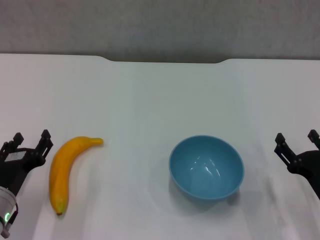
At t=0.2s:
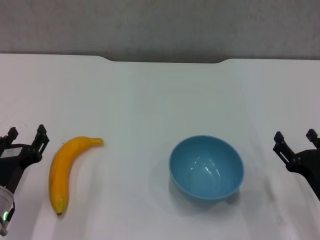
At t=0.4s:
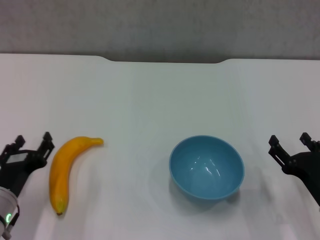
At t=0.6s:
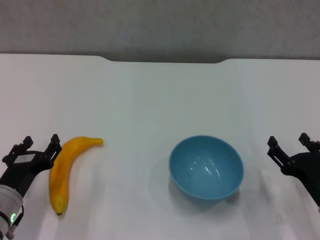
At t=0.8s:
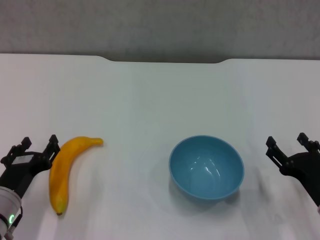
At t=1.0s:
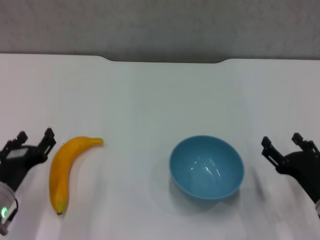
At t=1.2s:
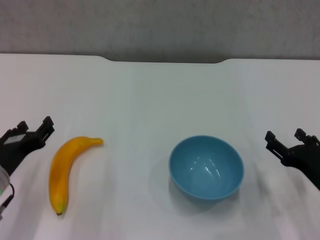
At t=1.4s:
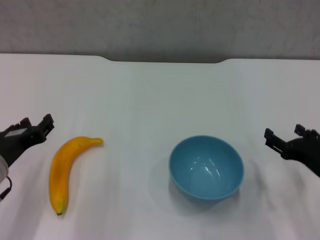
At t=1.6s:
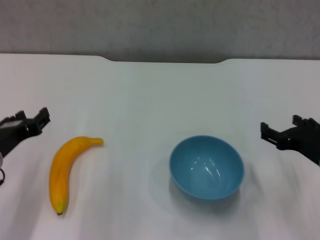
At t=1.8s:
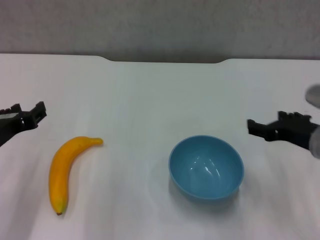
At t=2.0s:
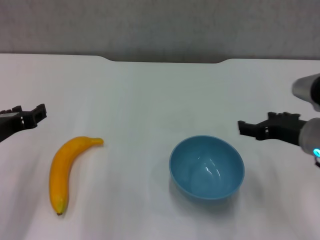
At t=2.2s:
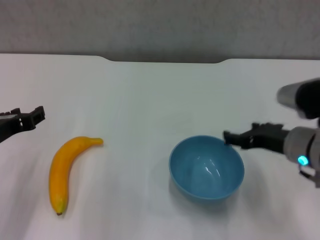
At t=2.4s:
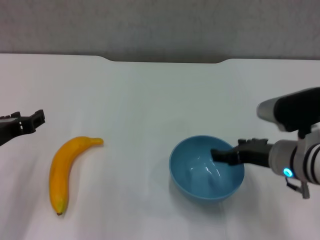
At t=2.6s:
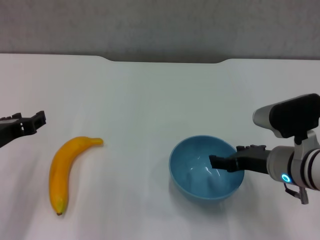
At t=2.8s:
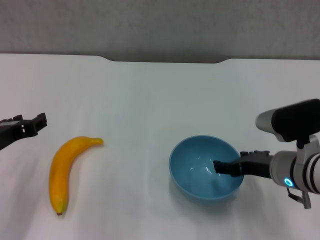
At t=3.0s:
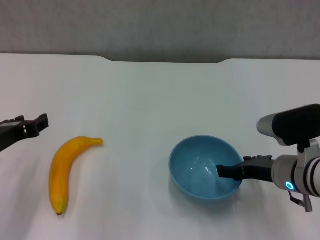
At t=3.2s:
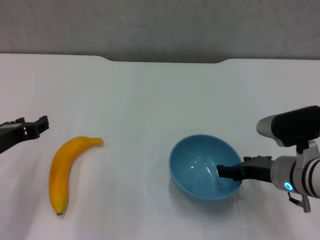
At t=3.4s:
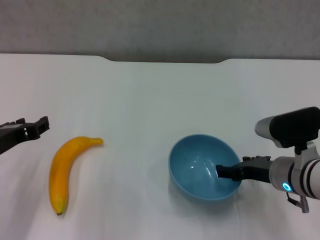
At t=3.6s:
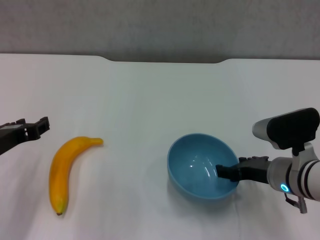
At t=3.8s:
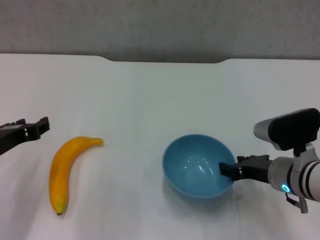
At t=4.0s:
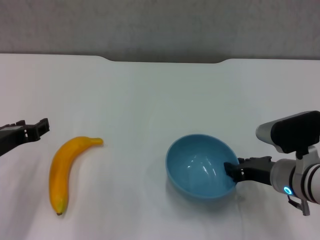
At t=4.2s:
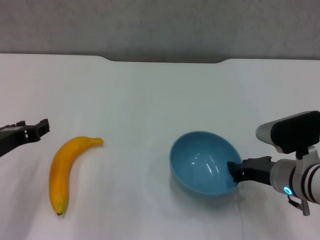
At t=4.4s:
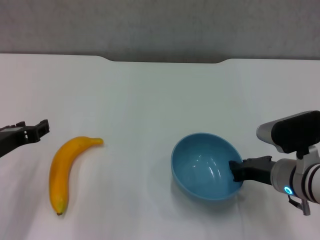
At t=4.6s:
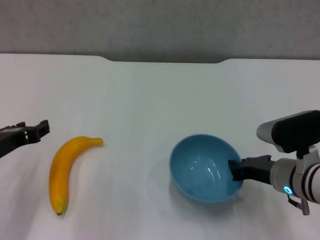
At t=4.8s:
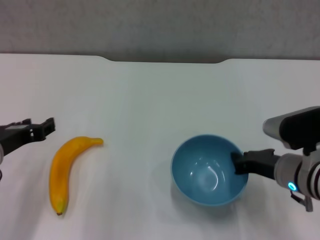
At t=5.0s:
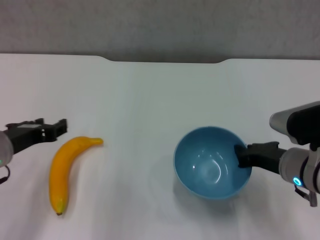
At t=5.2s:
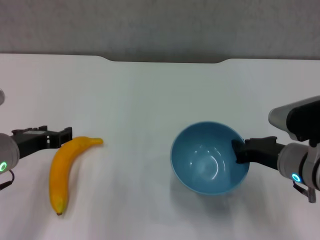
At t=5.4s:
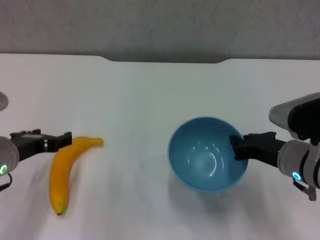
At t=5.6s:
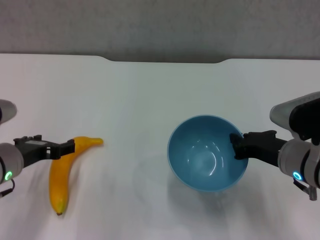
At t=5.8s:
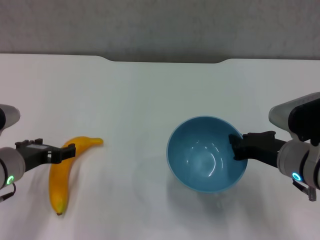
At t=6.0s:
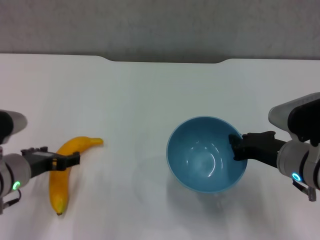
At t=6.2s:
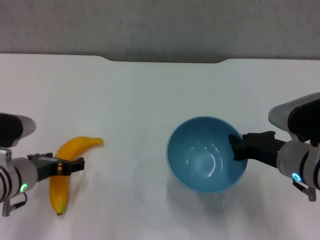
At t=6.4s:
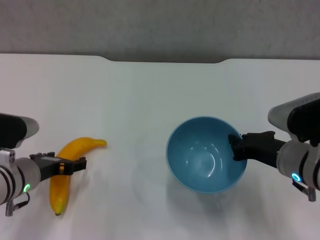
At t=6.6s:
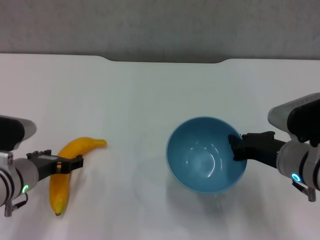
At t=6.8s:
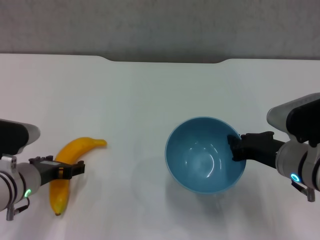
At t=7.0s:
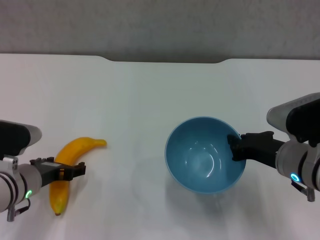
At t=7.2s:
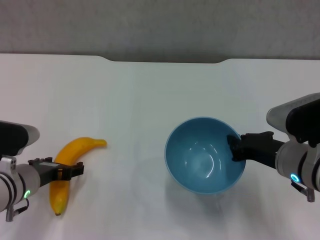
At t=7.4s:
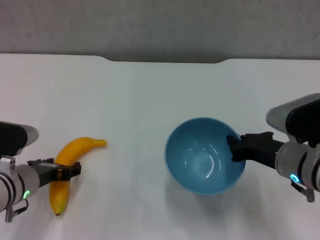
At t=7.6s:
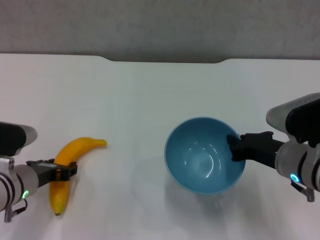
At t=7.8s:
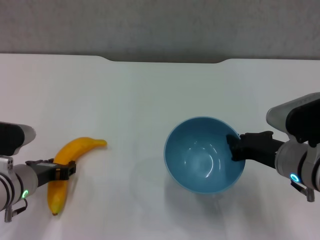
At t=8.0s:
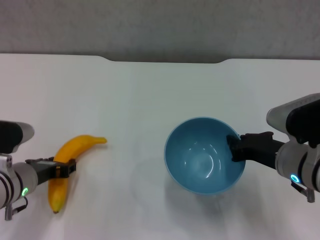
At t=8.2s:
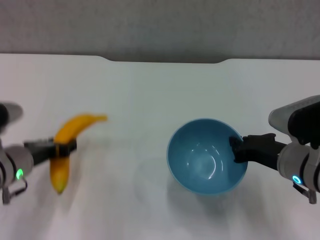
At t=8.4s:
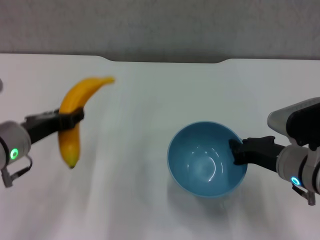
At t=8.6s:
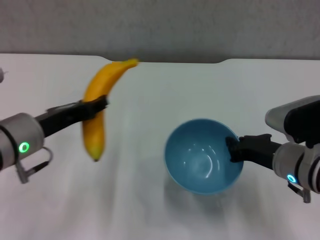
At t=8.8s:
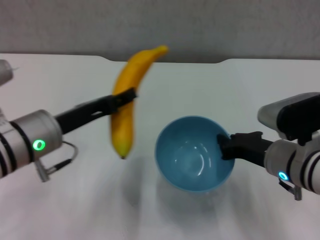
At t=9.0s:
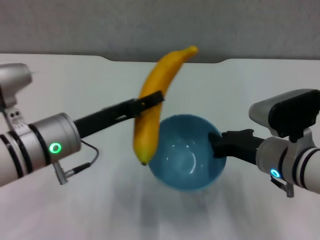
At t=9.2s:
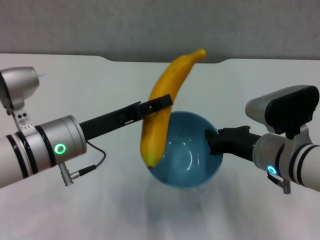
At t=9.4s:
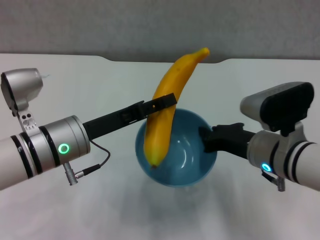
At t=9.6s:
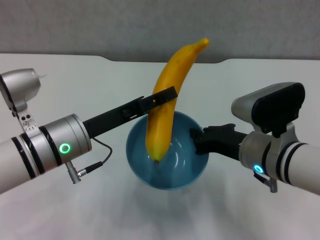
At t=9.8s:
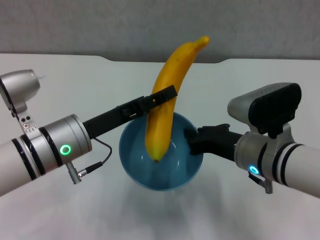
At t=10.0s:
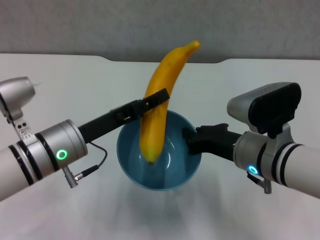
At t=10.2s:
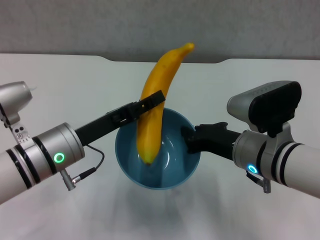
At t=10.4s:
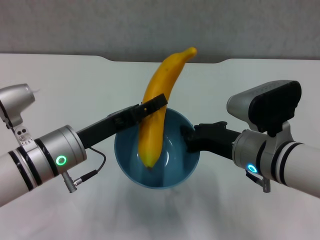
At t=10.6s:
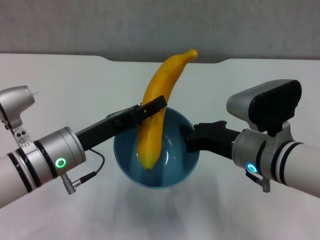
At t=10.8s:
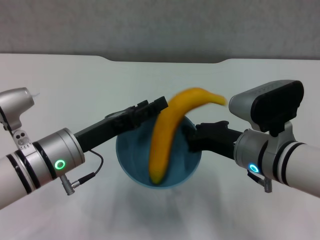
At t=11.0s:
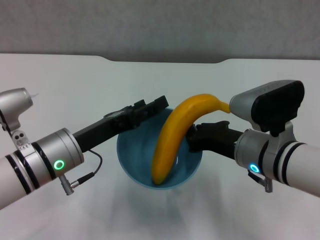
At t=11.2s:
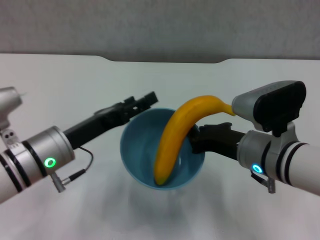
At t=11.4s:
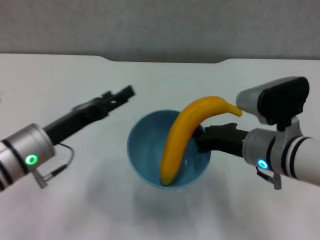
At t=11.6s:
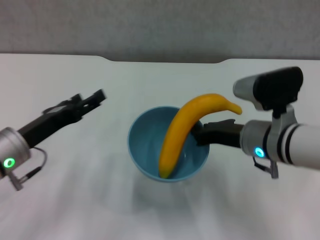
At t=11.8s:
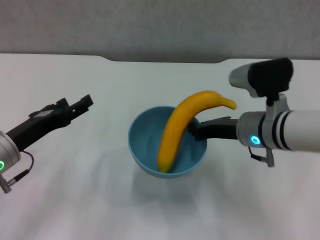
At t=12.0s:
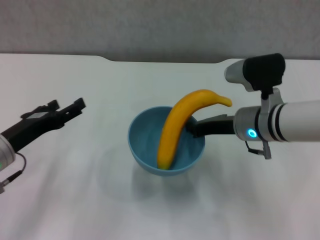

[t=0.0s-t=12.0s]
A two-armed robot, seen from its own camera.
Step, t=0.0s to t=4.2s: Grasp the blue bowl with right gripper.
Step, t=4.4s to t=5.2s: Lift the blue bowl with right gripper.
Step, t=5.4s to t=7.8s: Grasp the banana with left gripper.
Step, t=8.0s to t=11.0s: Place the banana in the blue bowl with left gripper.
t=0.0s to t=1.6s: The left gripper goes some 10 cm upward. Meanwhile the right gripper travels upward and forward by approximately 10 cm.
t=1.6s to t=3.0s: The right gripper moves roughly 5 cm.
t=3.0s to t=4.4s: The right gripper closes its fingers.
t=4.4s to t=6.0s: The left gripper moves roughly 5 cm, and opens.
t=6.0s to t=7.6s: The left gripper closes its fingers.
t=7.6s to t=9.0s: The left gripper is displaced upward and to the right by some 10 cm, and closes its fingers.
t=10.4s to t=12.0s: The left gripper moves to the left, approximately 10 cm, and opens. Meanwhile the right gripper goes about 10 cm forward.

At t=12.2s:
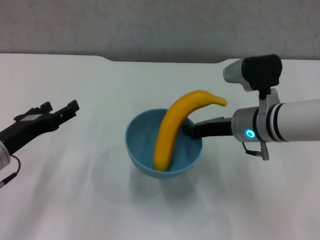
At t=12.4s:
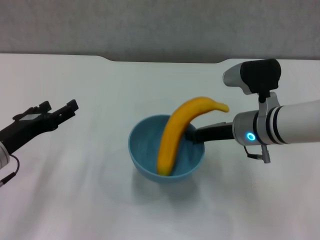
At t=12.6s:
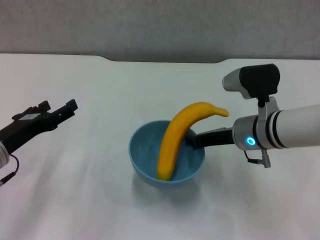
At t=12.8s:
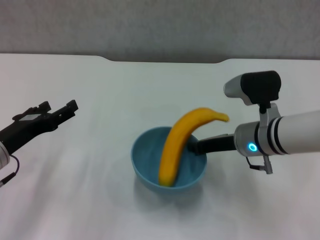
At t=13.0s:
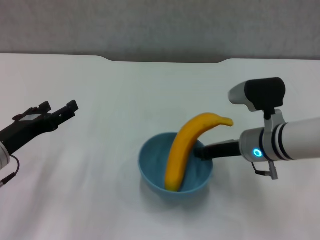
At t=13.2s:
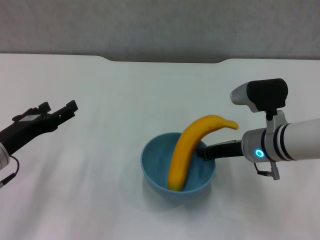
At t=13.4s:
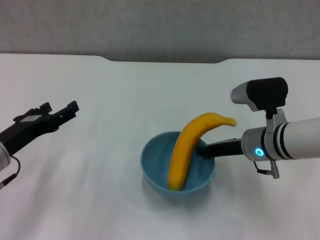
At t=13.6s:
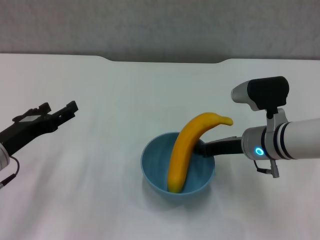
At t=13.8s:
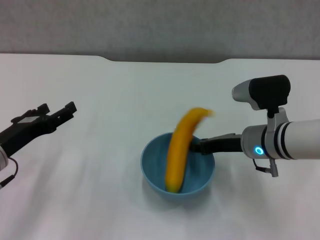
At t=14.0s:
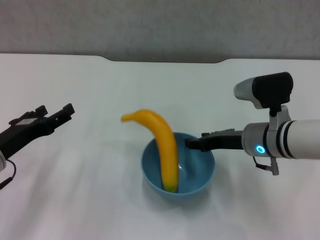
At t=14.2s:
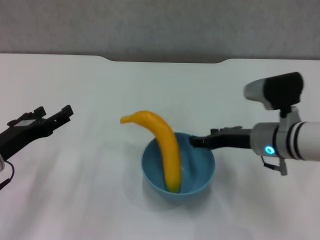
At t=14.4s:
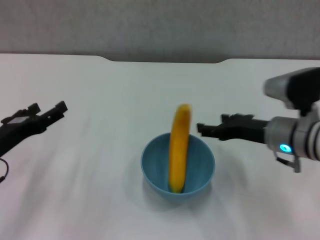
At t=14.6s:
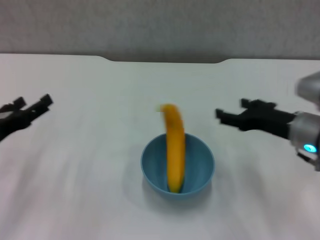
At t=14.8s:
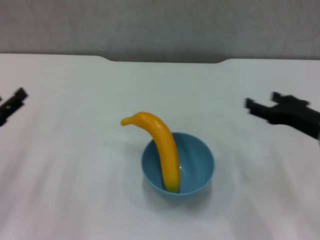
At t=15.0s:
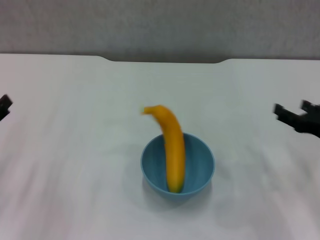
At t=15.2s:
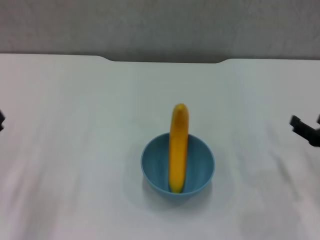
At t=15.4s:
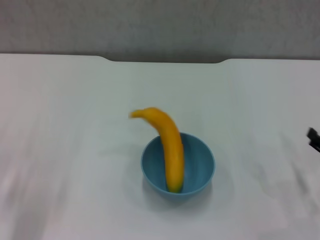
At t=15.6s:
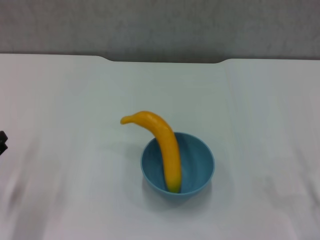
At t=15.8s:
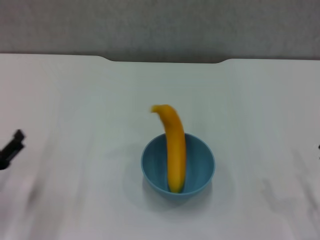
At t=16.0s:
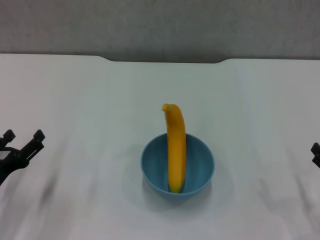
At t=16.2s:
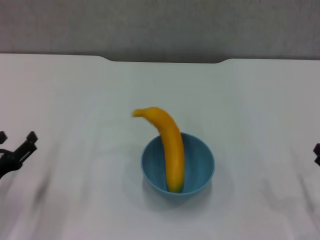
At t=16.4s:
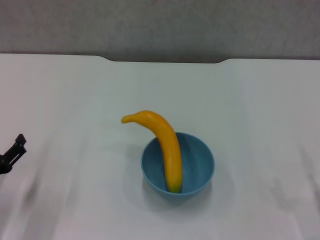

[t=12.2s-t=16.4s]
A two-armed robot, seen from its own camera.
Step, t=12.2s to t=14.2s: Place the bowl on the table with right gripper.
t=12.2s to t=13.6s: The grippers stay close to where they were, moving slightly.
t=13.6s to t=15.0s: The left gripper shifts some 5 cm to the left. The right gripper travels to the right and backward by approximately 15 cm, and opens its fingers.
t=15.0s to t=16.4s: The right gripper goes approximately 10 cm backward and downward. The left gripper goes about 5 cm downward.
